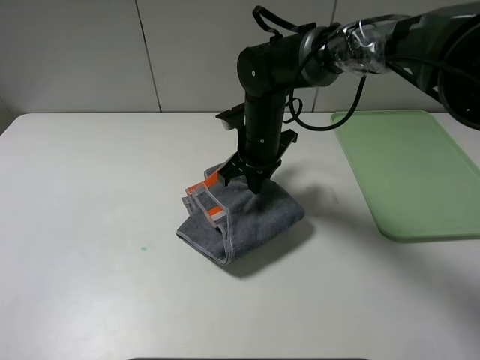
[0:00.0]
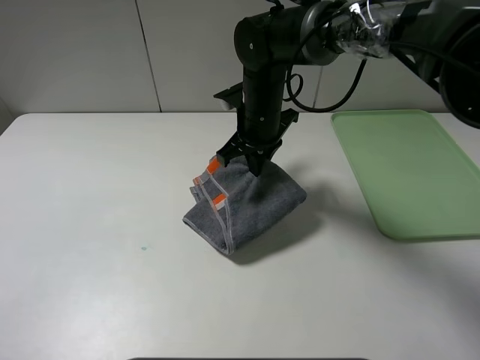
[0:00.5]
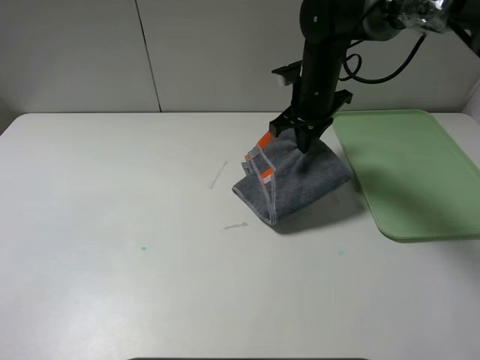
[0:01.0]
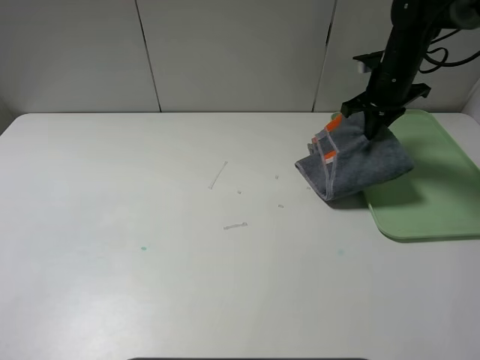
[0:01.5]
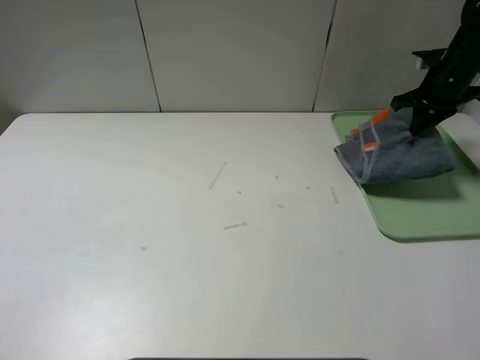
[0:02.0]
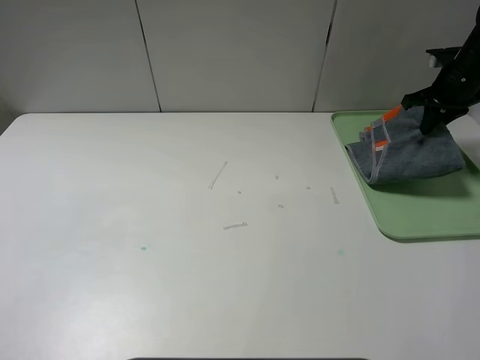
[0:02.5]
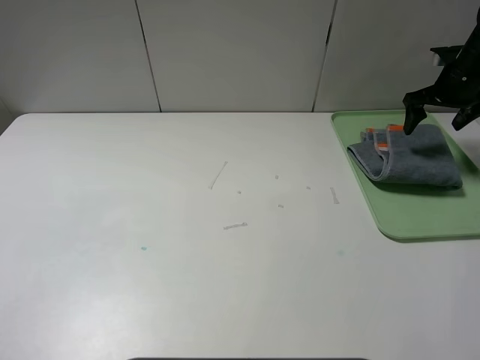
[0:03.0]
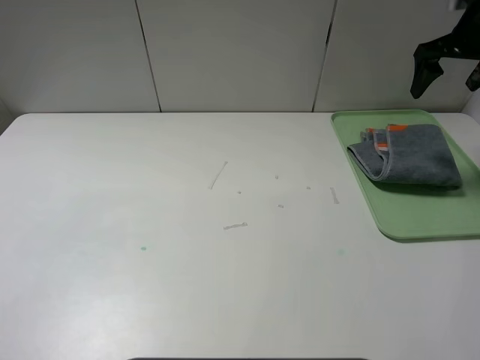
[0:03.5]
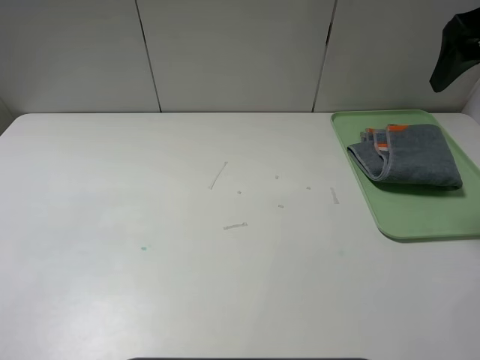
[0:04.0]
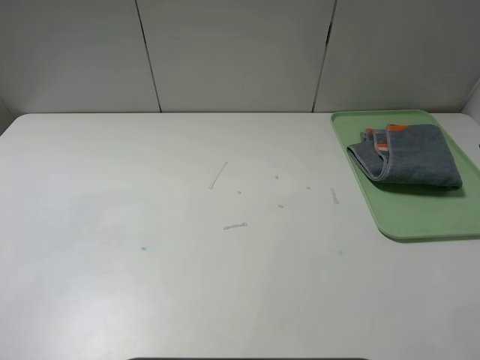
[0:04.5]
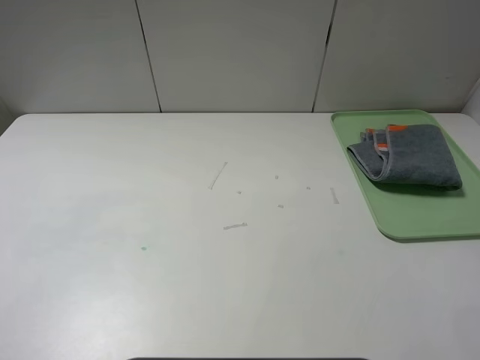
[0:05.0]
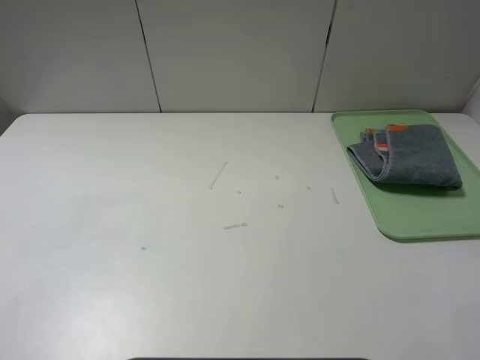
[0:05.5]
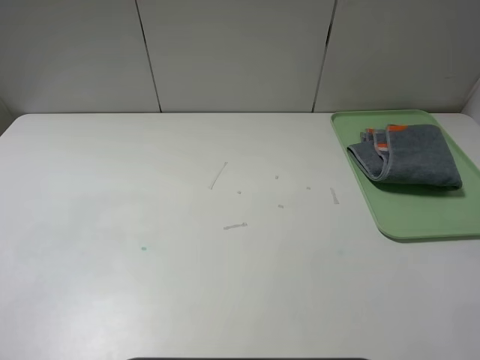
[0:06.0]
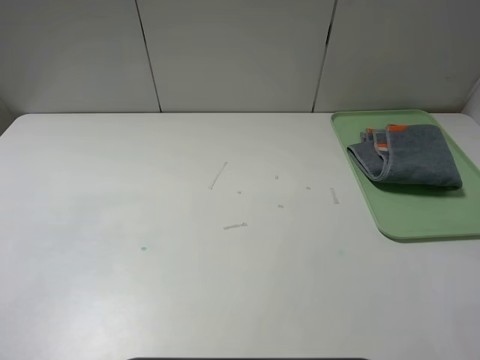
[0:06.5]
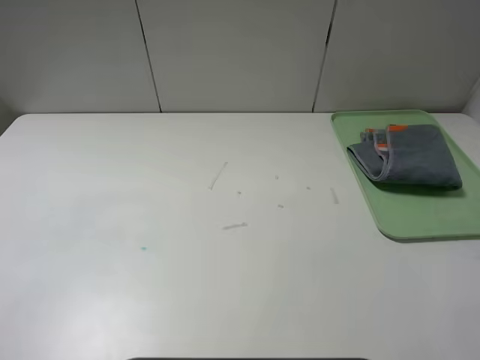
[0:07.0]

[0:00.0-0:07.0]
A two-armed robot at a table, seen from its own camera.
Step, 0:00.0 to 0:02.5: Place the folded grey towel on the tray with the right gripper.
0:00.0 to 0:02.0: The right gripper travels to the right by some 35 cm.
0:02.0 to 0:03.5: The right gripper goes some 10 cm upward, and opens up.
0:03.5 to 0:05.0: The right gripper travels backward by roughly 40 cm.

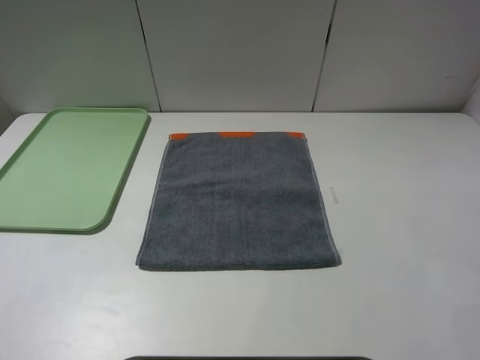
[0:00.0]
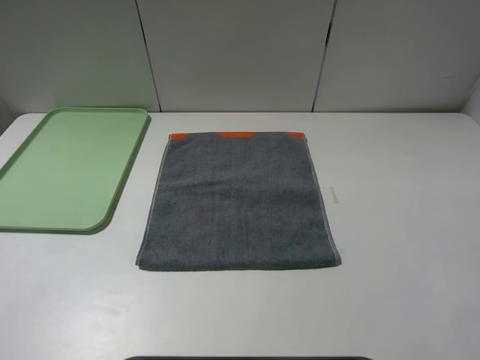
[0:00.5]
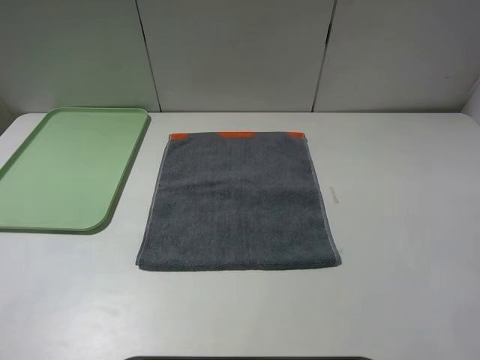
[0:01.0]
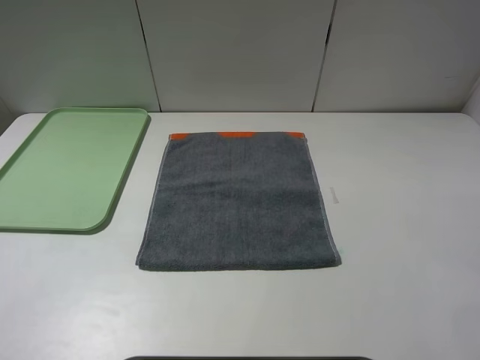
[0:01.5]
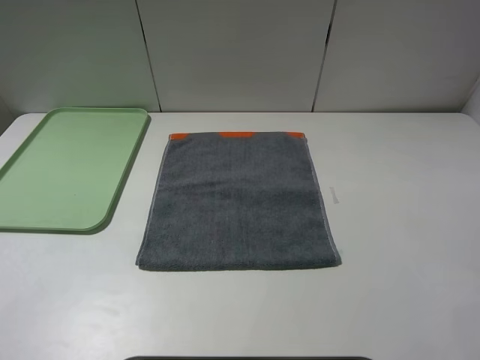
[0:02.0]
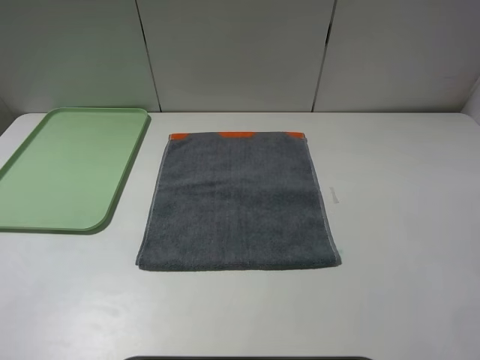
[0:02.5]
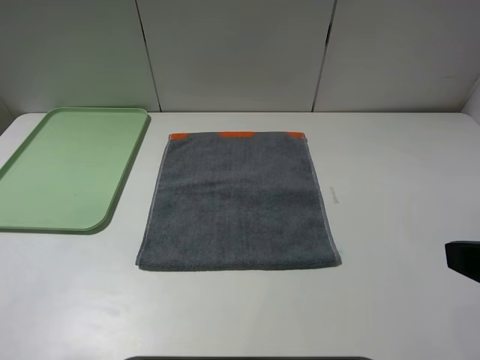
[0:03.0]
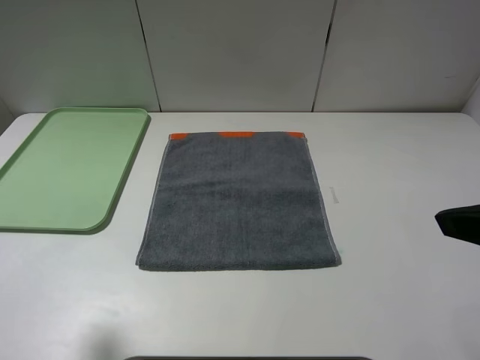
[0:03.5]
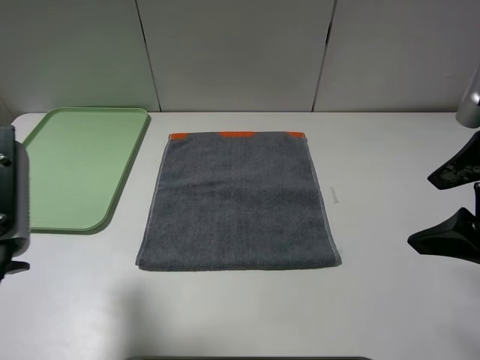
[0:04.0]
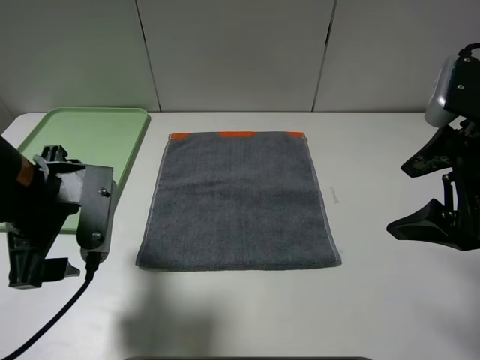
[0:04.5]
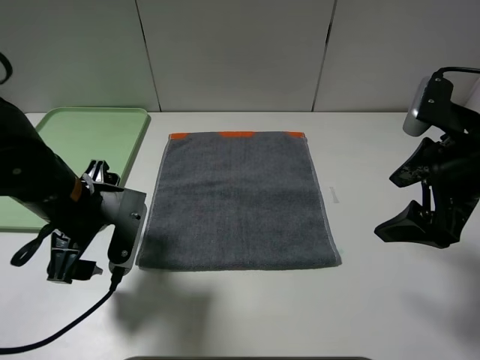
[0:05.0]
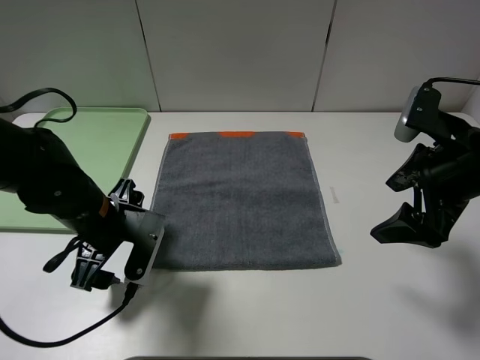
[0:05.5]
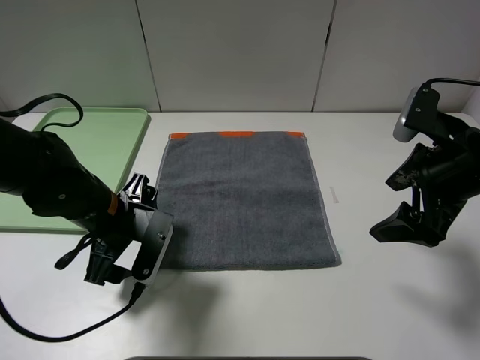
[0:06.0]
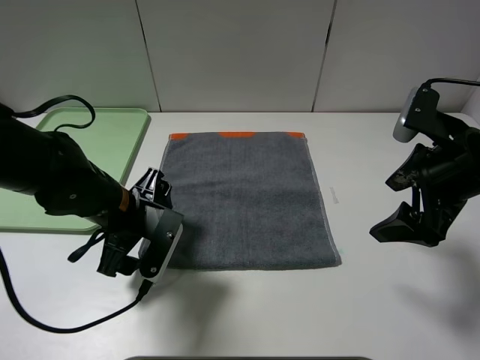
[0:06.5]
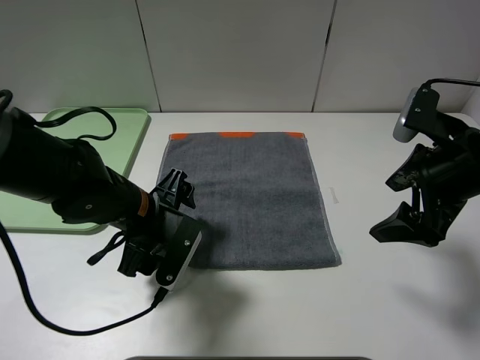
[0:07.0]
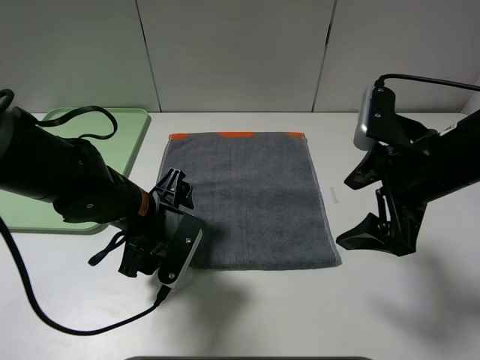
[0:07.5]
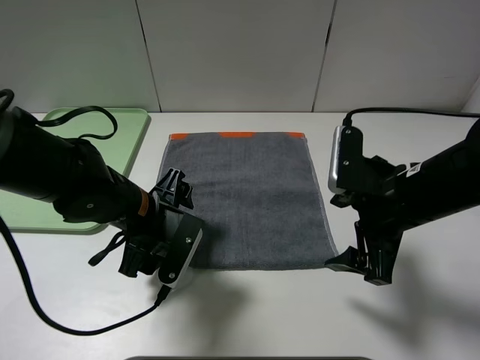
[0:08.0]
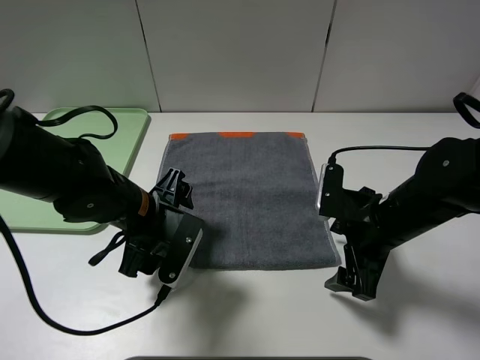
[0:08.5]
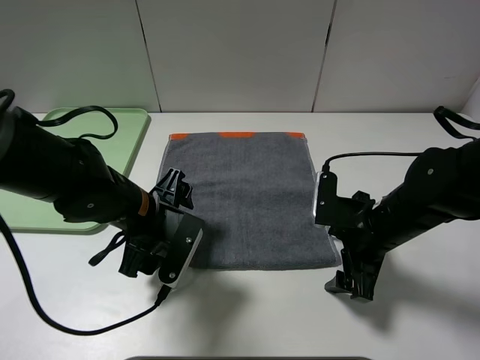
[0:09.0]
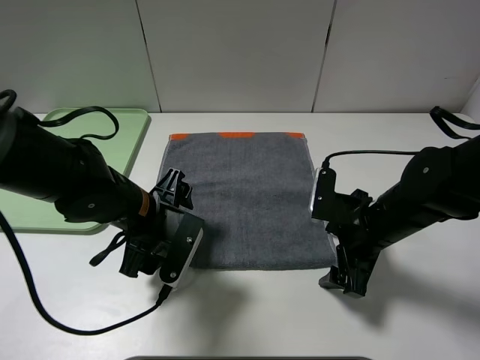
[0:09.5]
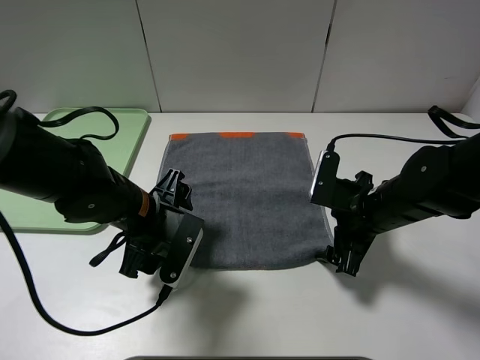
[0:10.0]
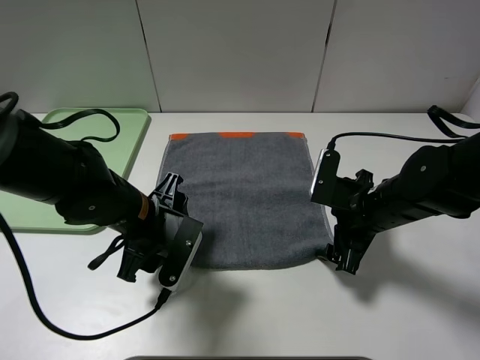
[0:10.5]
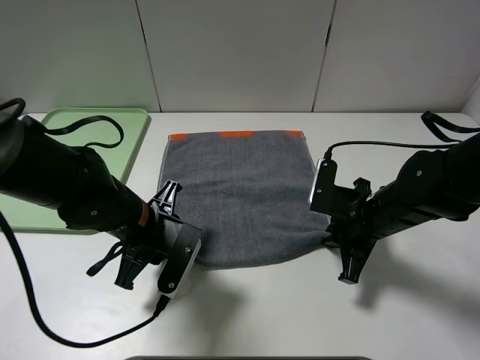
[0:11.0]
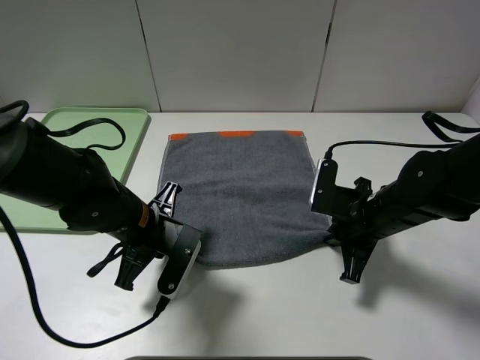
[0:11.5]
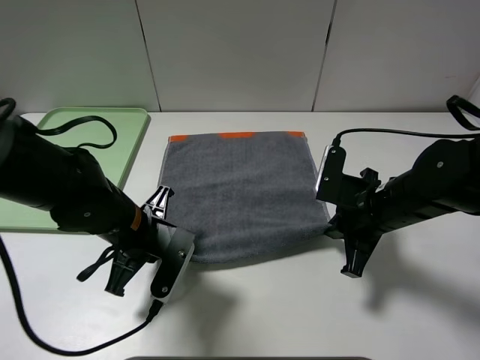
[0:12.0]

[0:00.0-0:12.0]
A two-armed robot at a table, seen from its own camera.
0:00.0 to 0:02.0: The two grippers keep their place.
0:02.0 to 0:04.0: The left gripper shifts roughly 15 cm forward and to the right. Meanwhile the right gripper shifts approximately 15 cm forward.
0:04.0 to 0:06.0: The right gripper heads forward and downward, covering about 10 cm, while the left gripper is displaced downward, forward and to the right by about 20 cm.
0:06.0 to 0:08.0: The right gripper goes some 5 cm to the left.
0:08.0 to 0:10.0: The right gripper heads downward, covering some 5 cm.
0:10.0 to 0:12.0: The left gripper closes its fingers. The right gripper closes.

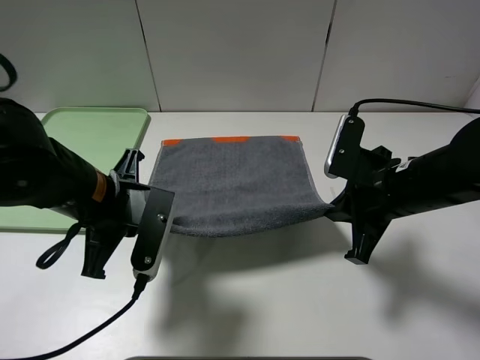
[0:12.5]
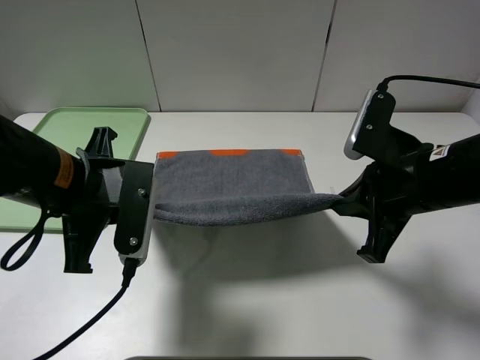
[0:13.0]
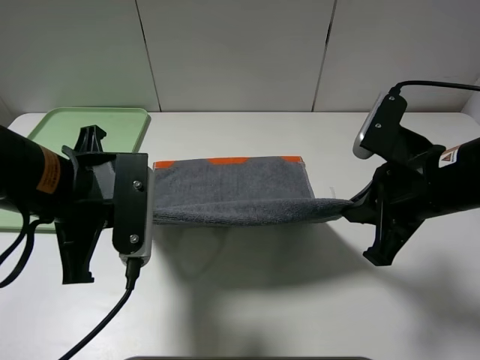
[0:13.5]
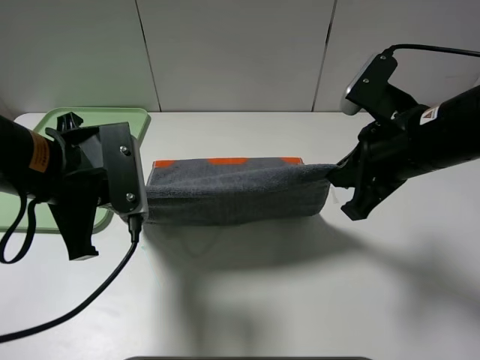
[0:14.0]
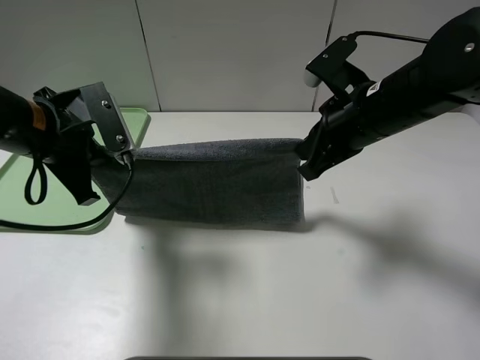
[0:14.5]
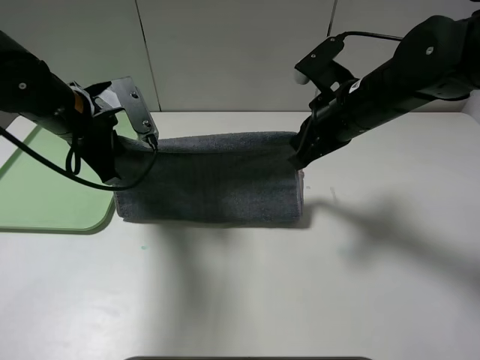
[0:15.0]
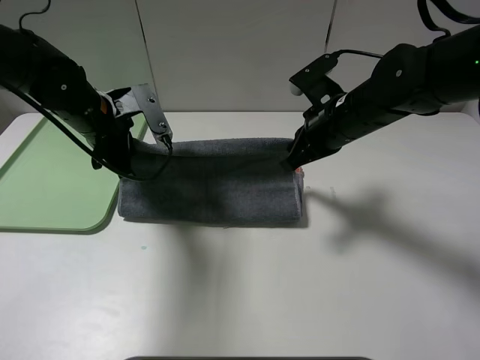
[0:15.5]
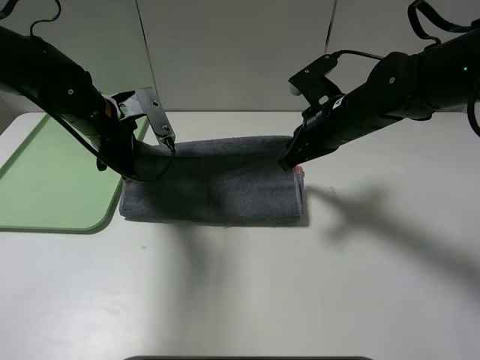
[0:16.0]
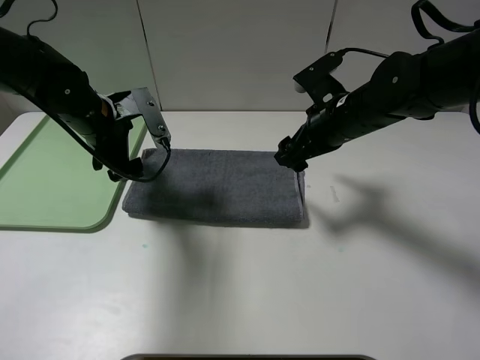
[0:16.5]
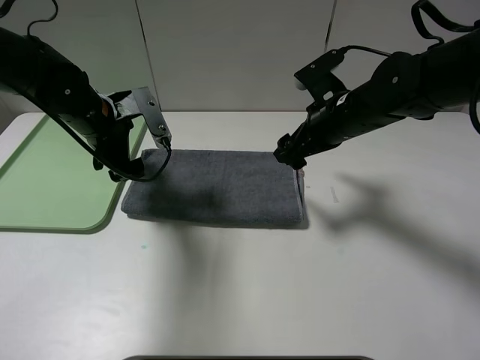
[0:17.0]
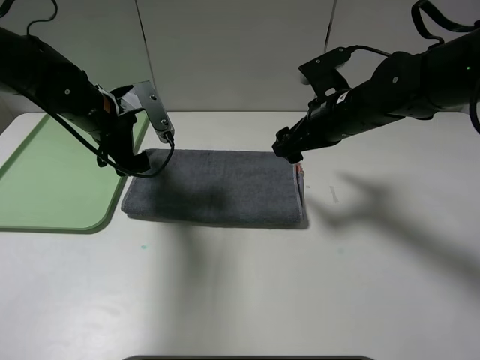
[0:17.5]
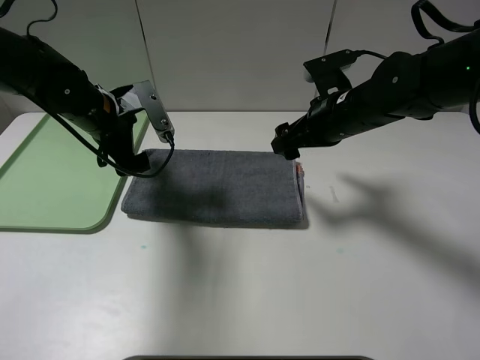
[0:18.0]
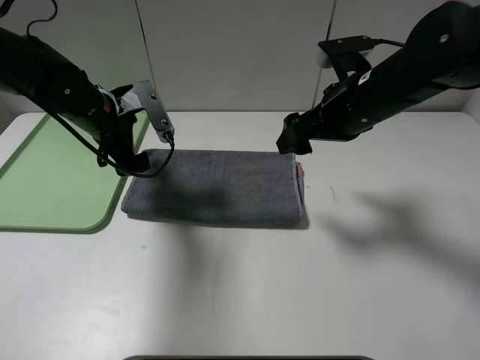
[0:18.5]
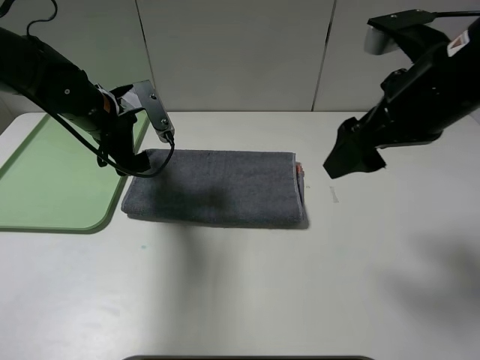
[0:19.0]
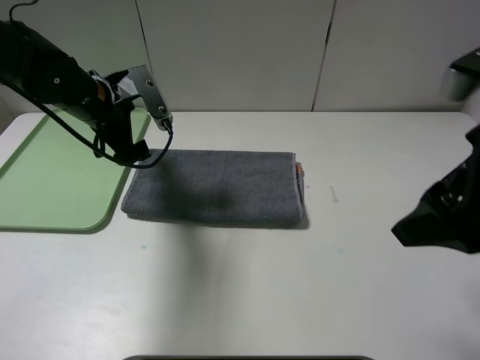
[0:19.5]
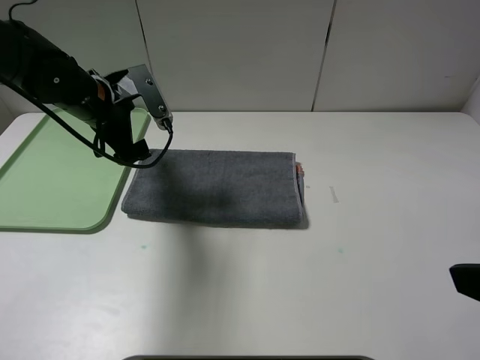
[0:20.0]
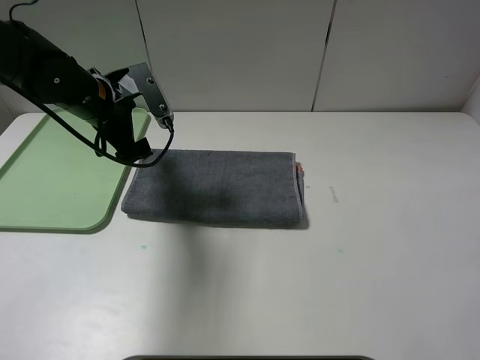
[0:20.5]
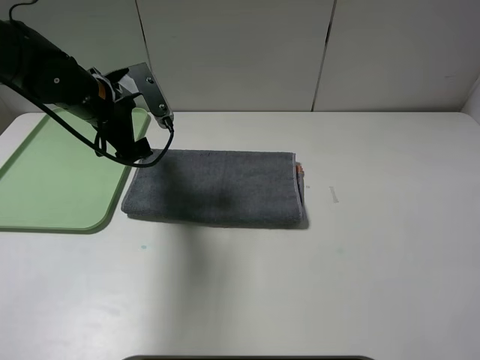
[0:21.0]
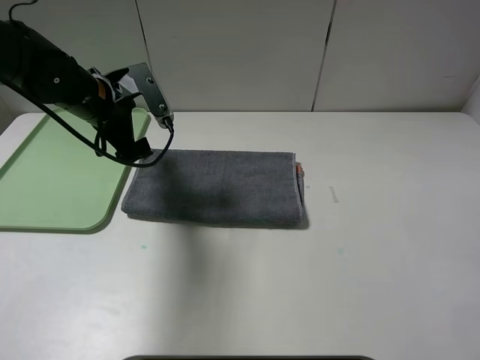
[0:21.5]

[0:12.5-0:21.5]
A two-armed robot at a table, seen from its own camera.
Step, 0:12.5 to 0:16.5: Fold the grey towel upwards.
0:12.5 to 0:14.5: The right gripper moves forward and upward, roughly 10 cm, while the left gripper goes roughly 10 cm to the left and forward.
0:14.5 to 0:17.0: The left gripper moves forward, approximately 10 cm, and opens. The right gripper shifts about 5 cm forward, and opens up.
0:17.0 to 0:19.5: The right gripper travels backward and upward by about 20 cm.
0:19.5 to 0:21.5: The right gripper shifts some 15 cm backward.
